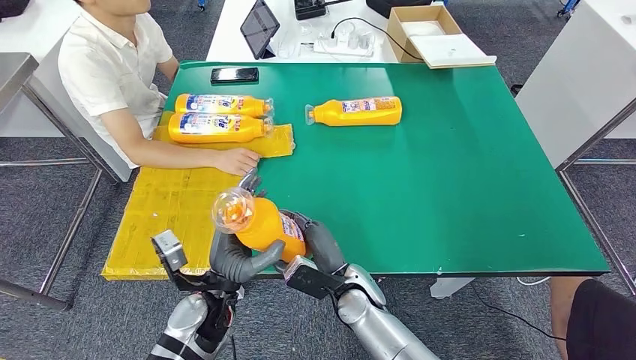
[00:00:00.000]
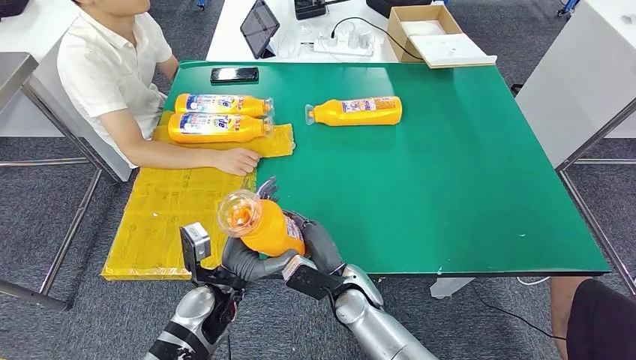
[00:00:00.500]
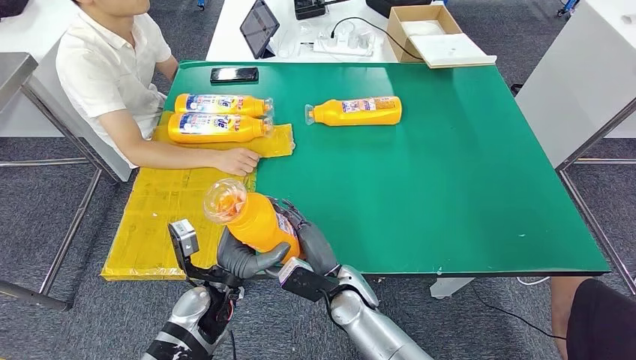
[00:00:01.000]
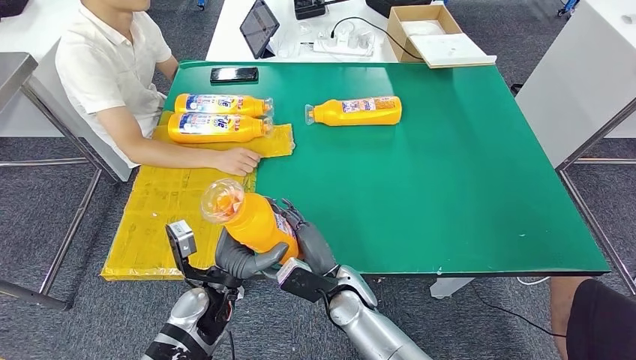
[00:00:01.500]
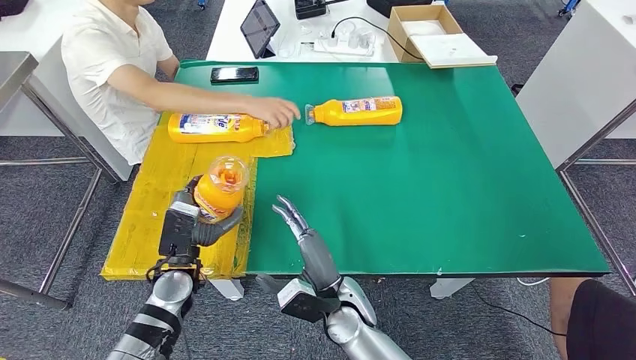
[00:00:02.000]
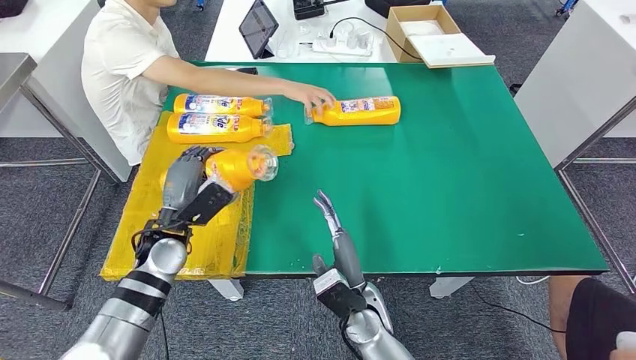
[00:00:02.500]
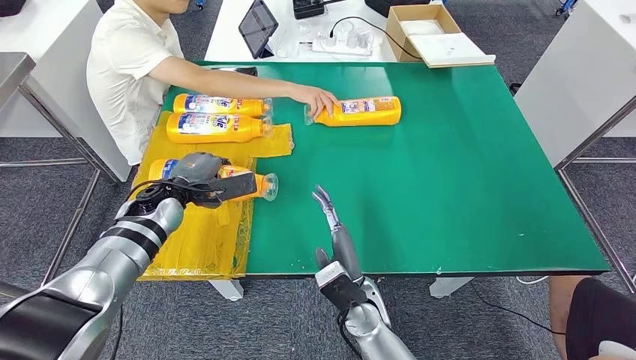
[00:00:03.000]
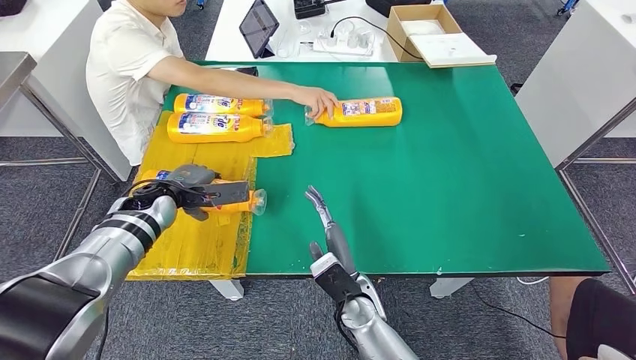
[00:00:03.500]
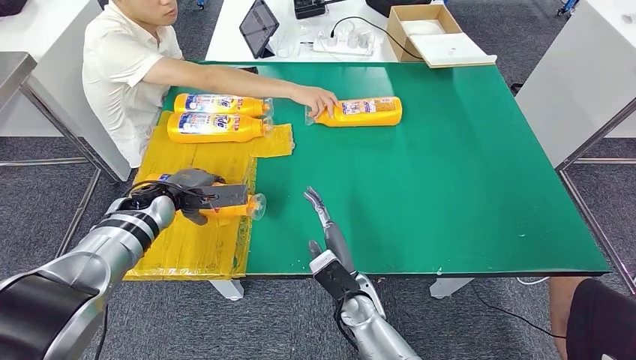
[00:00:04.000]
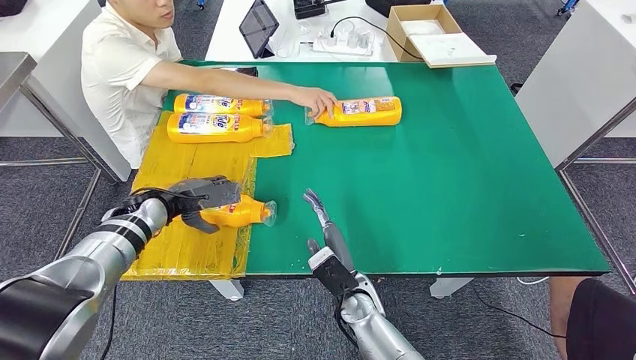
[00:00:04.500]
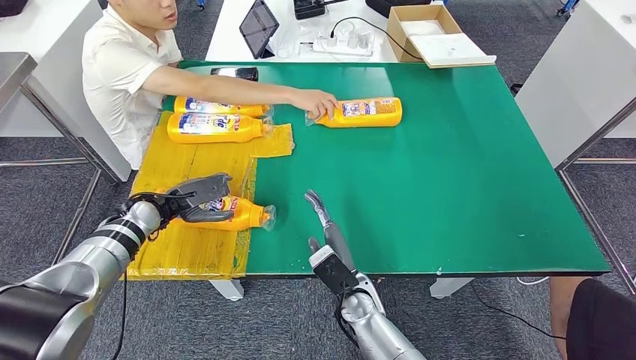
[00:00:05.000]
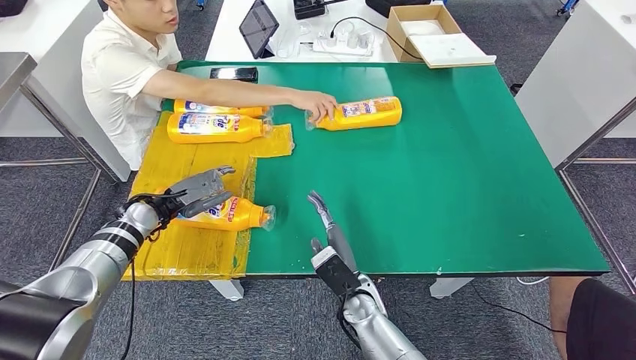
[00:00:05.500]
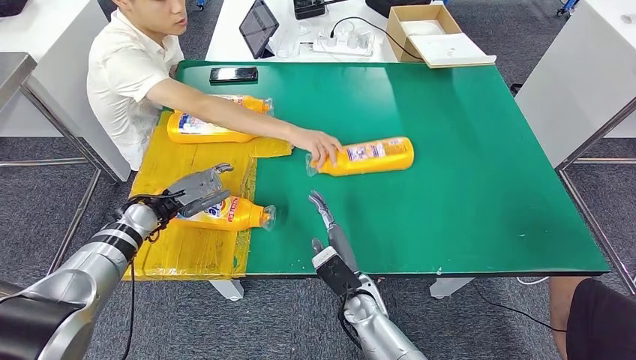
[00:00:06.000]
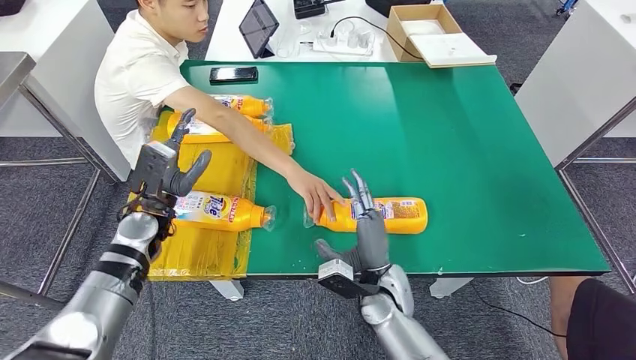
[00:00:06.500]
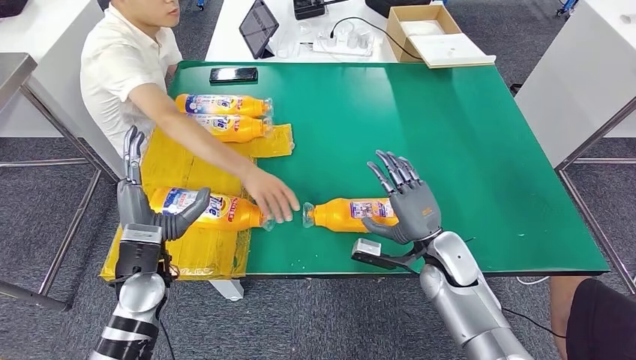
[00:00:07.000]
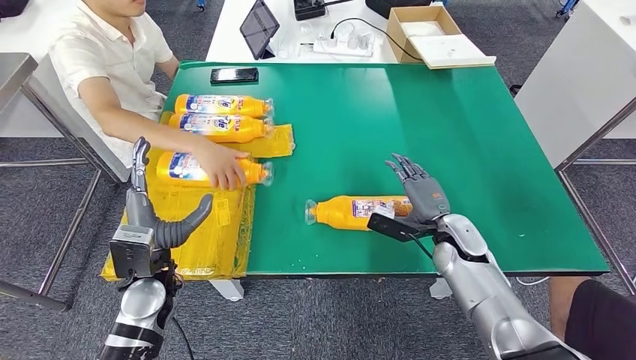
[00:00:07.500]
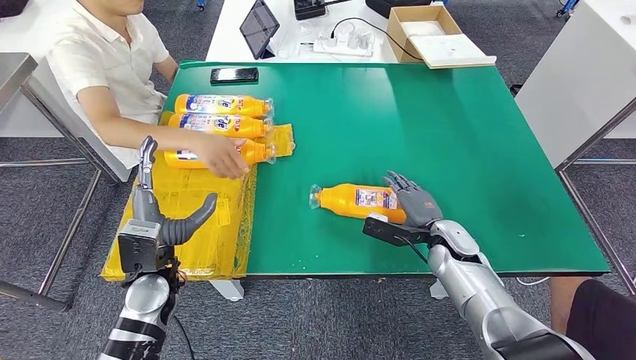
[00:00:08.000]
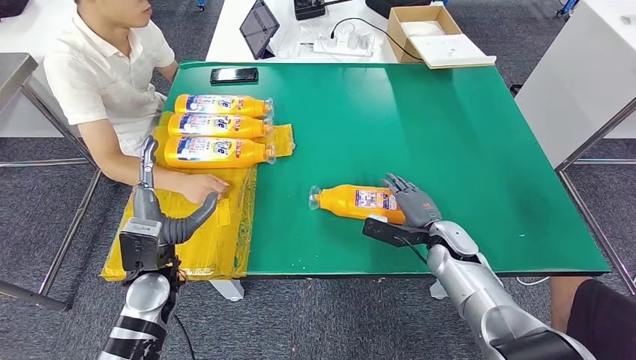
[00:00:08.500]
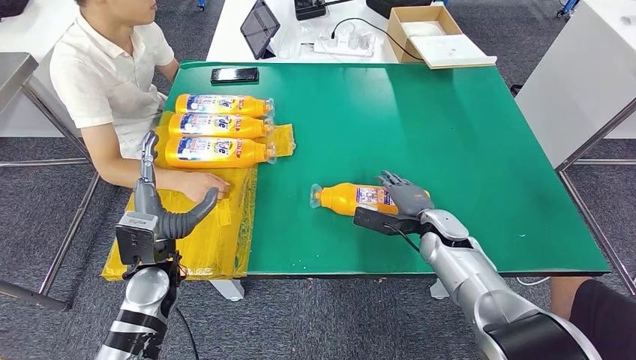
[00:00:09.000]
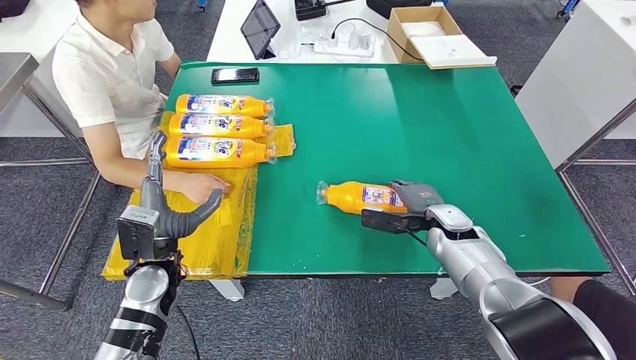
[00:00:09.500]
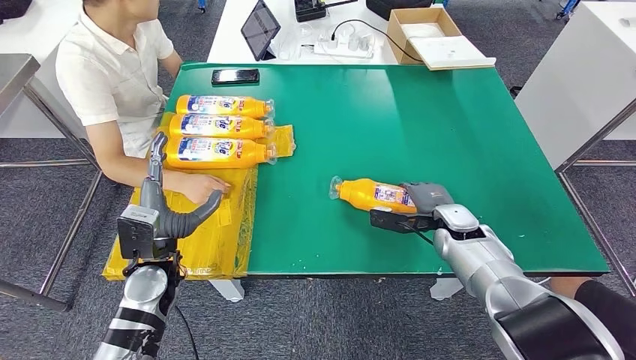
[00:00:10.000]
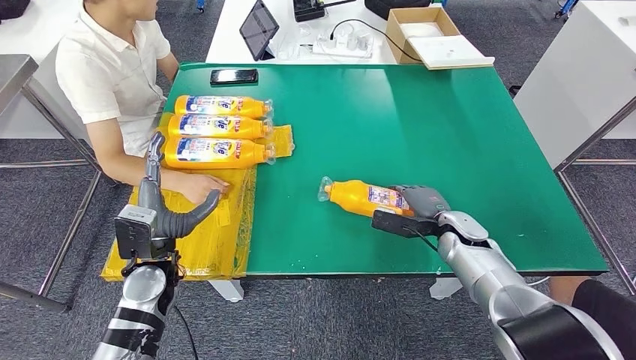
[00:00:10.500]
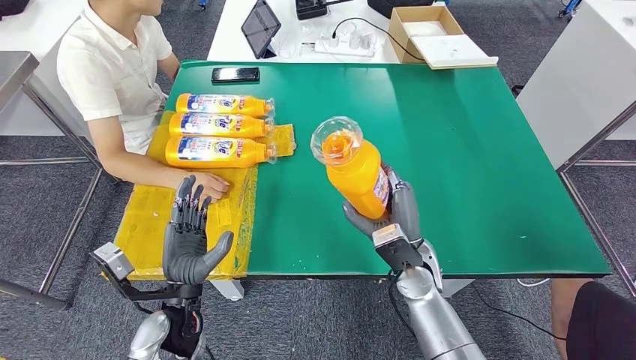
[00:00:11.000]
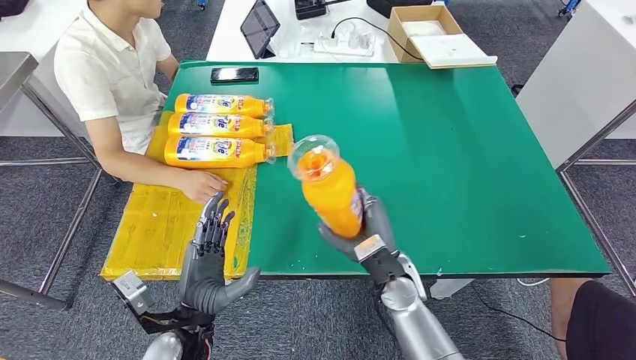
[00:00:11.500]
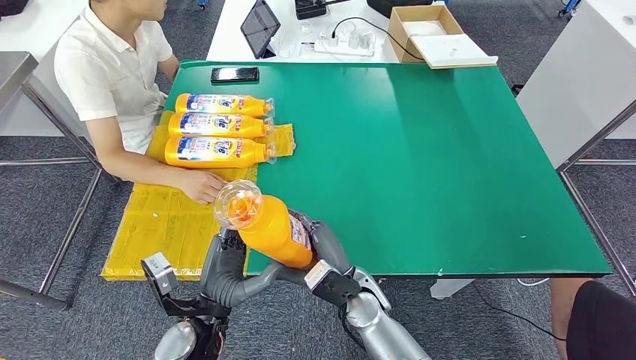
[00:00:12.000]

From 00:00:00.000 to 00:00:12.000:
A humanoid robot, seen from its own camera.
Step, from 00:00:01.500 to 00:00:07.500: Flip the bottle to face forward.
Step, from 00:00:08.000 to 00:00:11.000: Pick up the bottle from the table.
From 00:00:00.000 to 00:00:02.000: The left hand shifts some 10 cm to the left and forward.
From 00:00:04.000 to 00:00:06.000: The left hand shifts by about 5 cm.

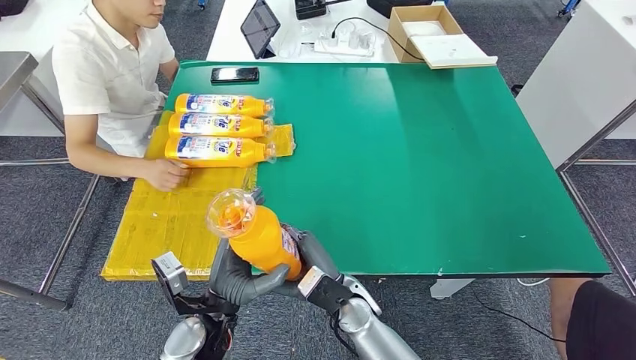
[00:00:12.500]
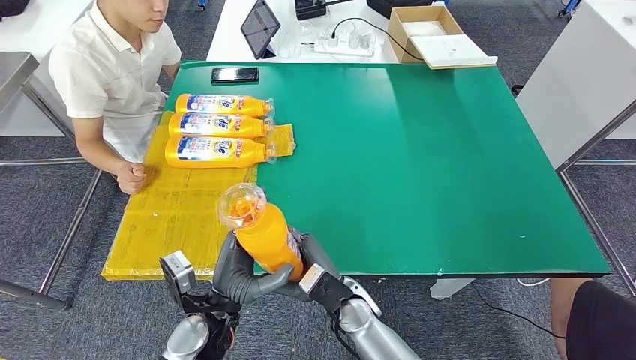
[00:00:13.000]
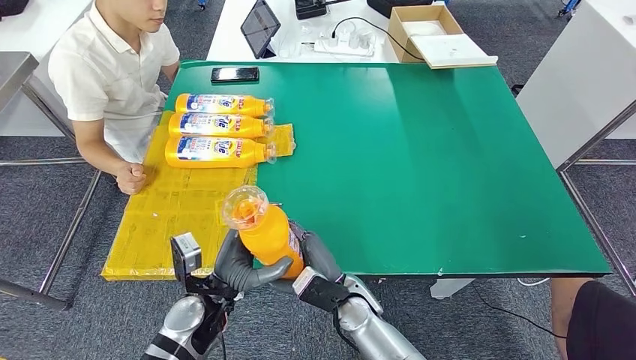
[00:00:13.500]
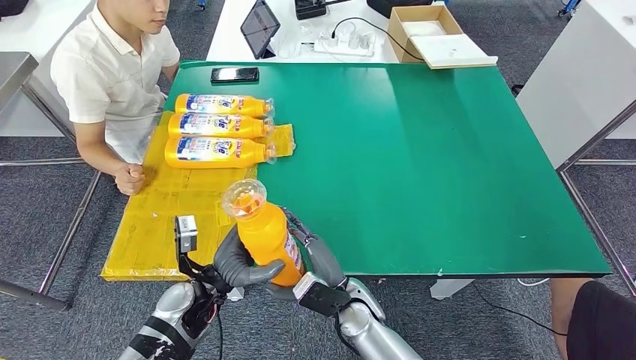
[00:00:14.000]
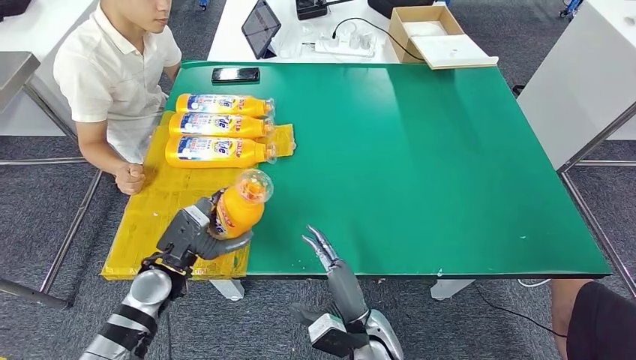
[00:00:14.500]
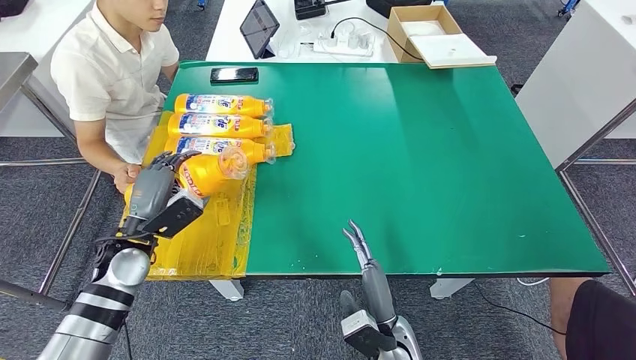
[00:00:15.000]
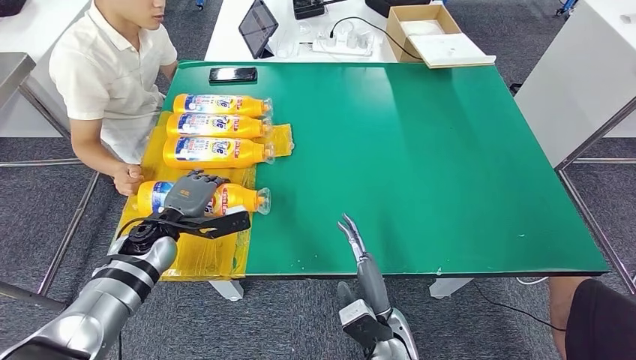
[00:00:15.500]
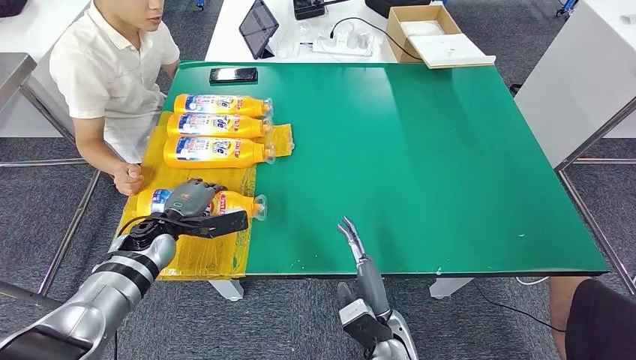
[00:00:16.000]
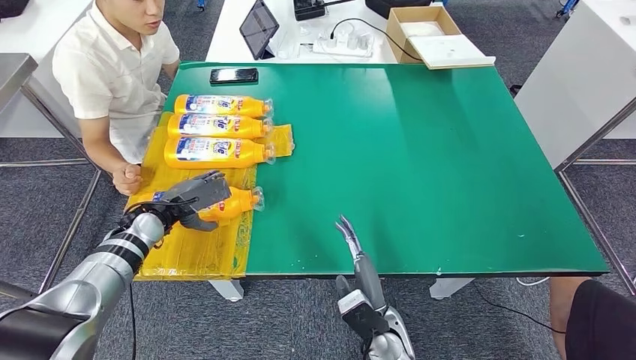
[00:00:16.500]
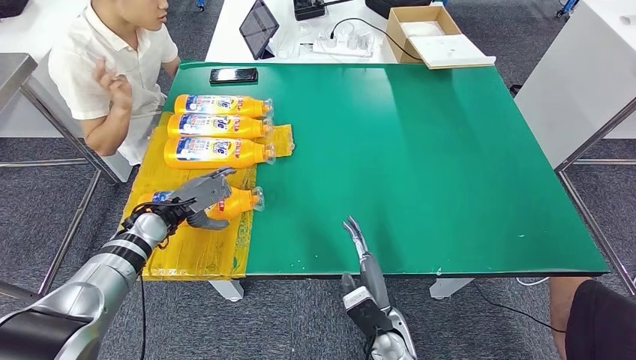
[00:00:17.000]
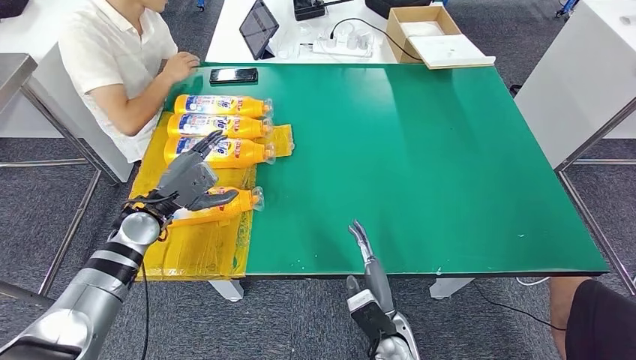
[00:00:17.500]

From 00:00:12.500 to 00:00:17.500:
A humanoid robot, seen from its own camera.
Step, from 00:00:12.500 to 00:00:17.500: Flip the bottle to face forward.
From 00:00:12.500 to 00:00:15.000: The left hand moves to the left and forward, some 20 cm, while the right hand goes roughly 10 cm to the right and backward.
From 00:00:15.000 to 00:00:17.500: The left hand heads forward, covering some 5 cm.
